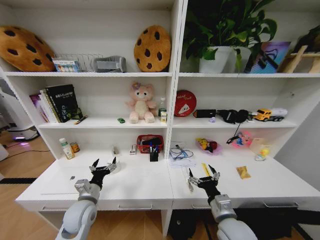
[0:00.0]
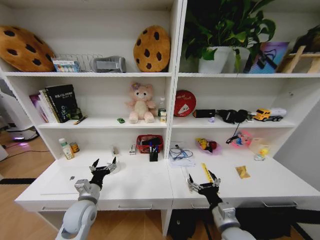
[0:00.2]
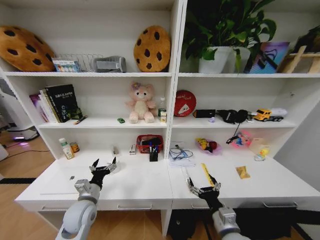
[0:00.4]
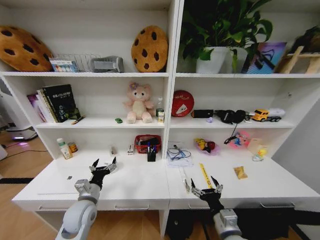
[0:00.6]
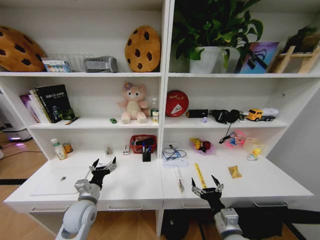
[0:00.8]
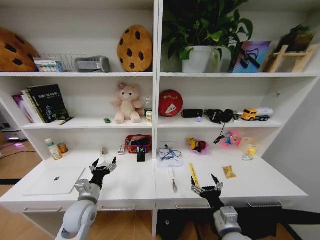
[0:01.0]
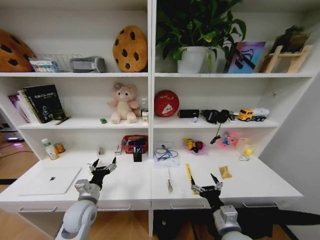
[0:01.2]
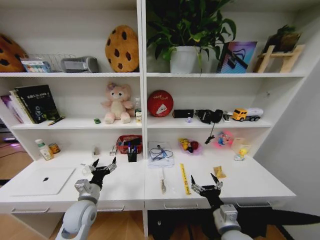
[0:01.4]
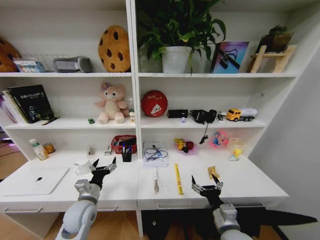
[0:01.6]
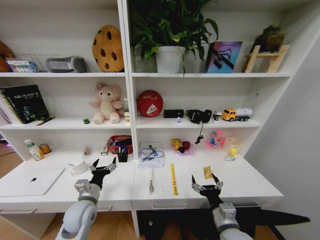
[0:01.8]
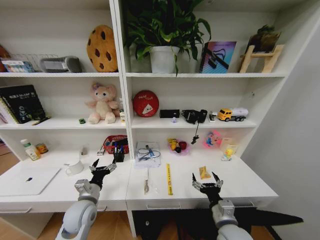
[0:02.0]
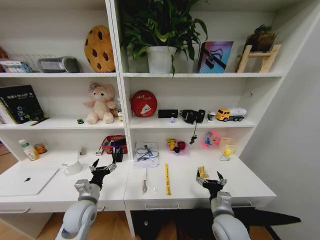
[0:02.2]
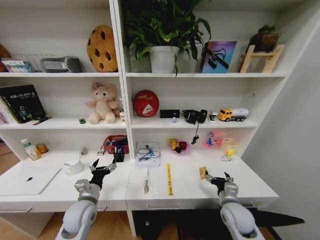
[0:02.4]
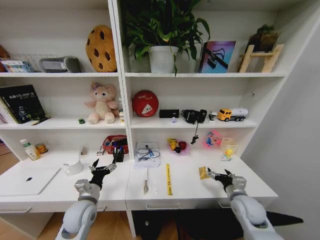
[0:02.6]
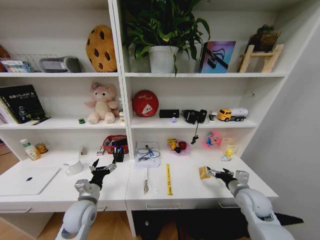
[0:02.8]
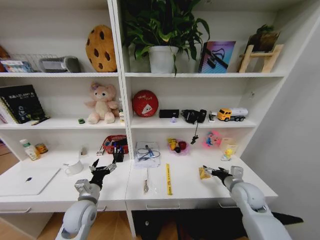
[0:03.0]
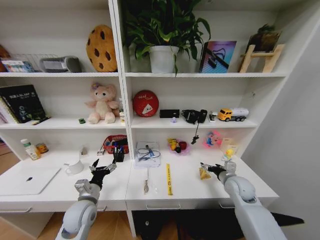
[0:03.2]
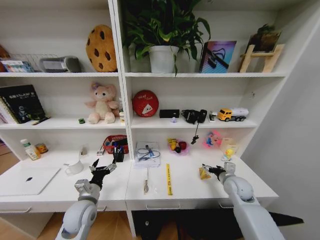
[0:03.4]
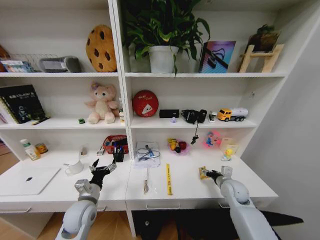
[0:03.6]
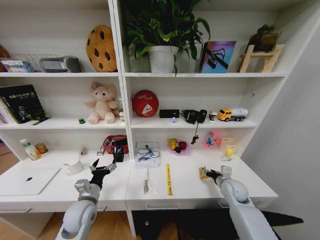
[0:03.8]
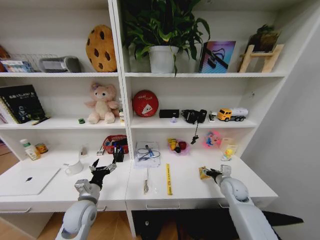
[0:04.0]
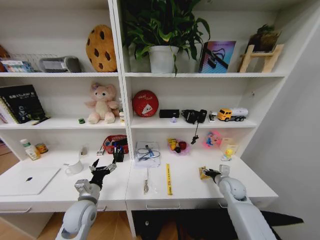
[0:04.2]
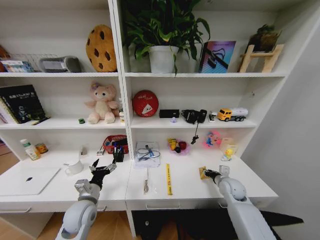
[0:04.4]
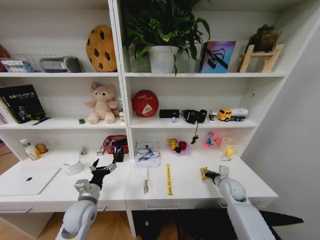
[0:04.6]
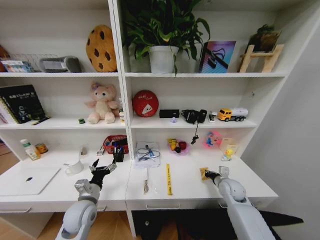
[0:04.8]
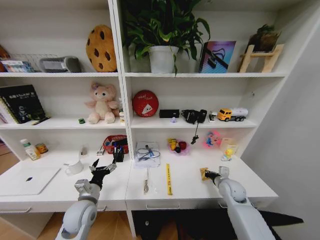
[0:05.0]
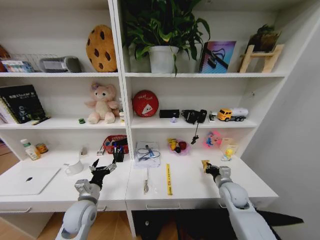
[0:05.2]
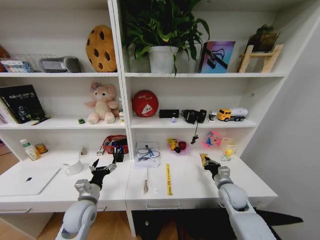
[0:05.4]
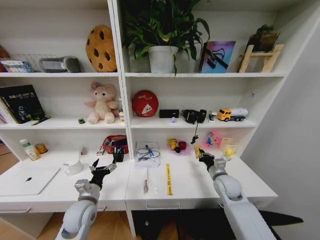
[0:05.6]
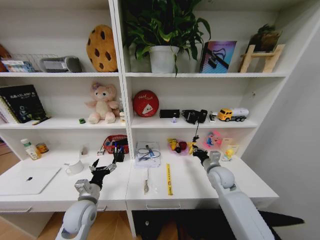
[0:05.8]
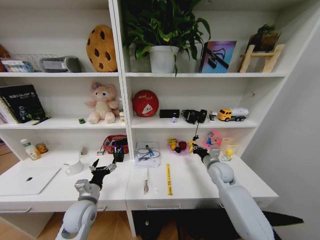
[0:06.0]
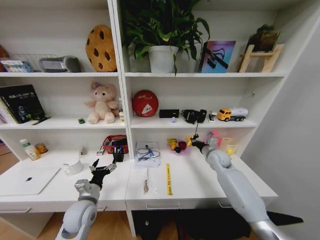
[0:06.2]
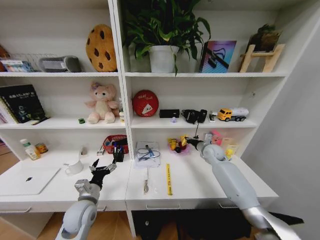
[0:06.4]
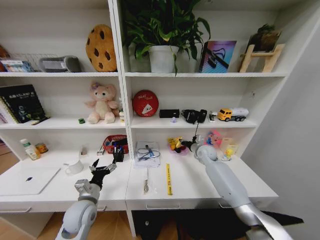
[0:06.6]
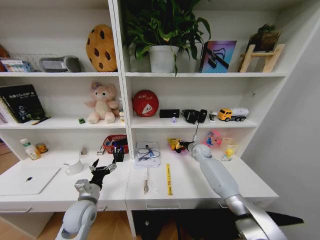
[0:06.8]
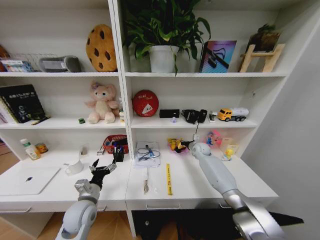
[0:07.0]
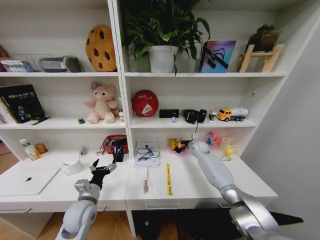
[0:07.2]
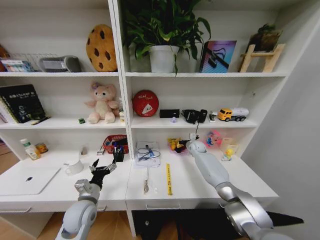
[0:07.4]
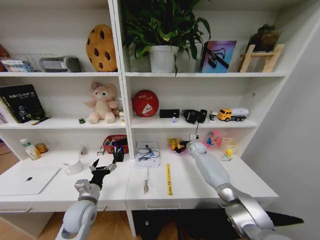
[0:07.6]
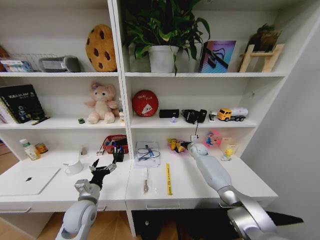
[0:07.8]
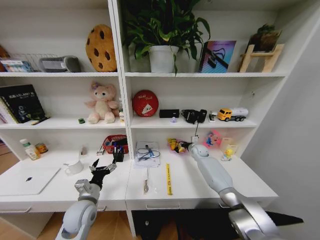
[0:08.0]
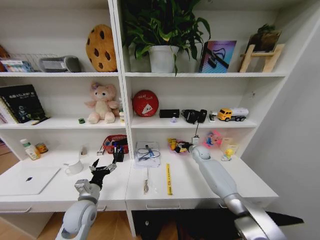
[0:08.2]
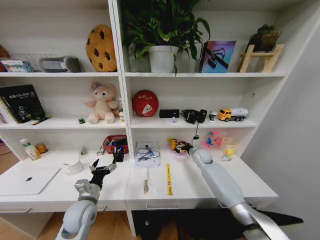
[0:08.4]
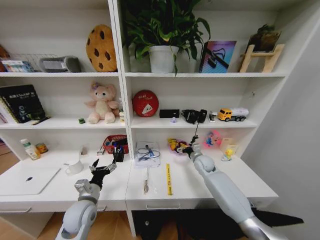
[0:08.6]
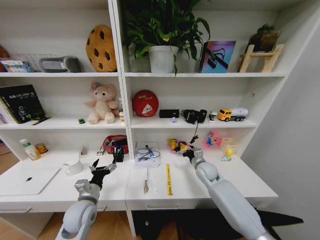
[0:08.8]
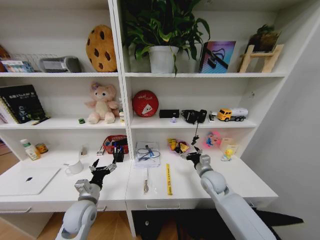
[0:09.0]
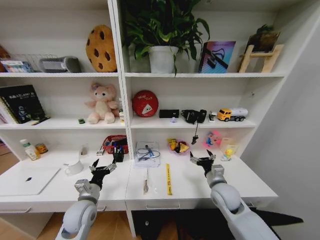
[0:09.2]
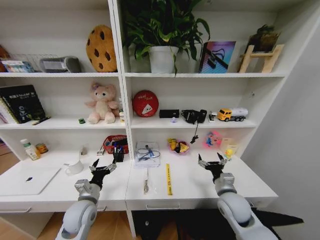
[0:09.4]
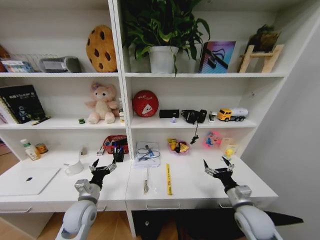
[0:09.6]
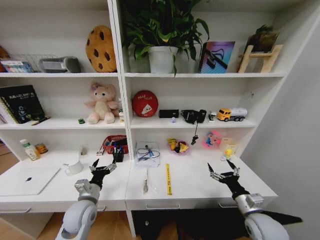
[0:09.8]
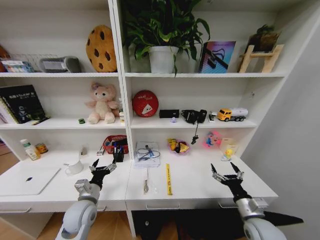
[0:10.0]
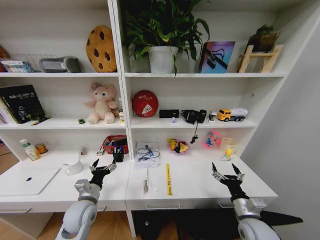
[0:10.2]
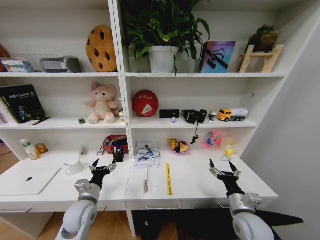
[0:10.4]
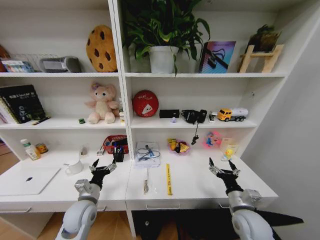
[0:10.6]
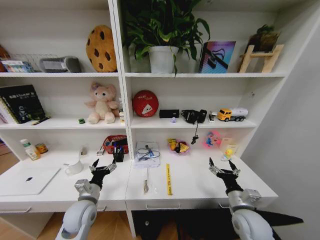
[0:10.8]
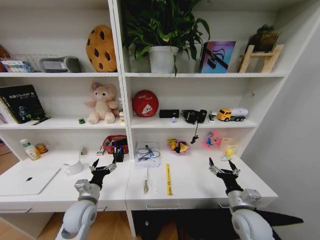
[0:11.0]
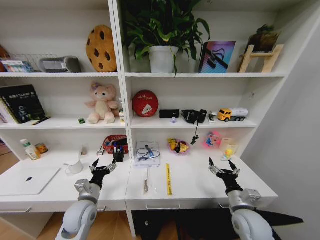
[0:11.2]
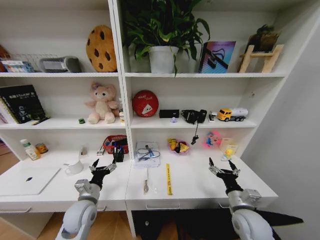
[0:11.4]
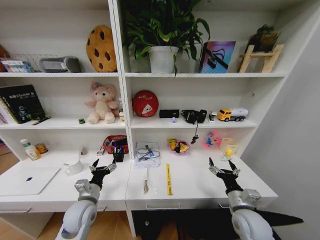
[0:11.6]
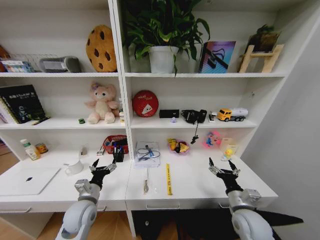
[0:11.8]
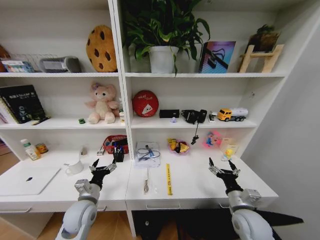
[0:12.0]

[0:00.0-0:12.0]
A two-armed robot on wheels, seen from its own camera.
Task of the whole recording: Organize the objects on the table.
0:01.6 to 0:03.0: The right gripper goes roughly 20 cm forward and to the right.
0:03.0 to 0:04.4: The right gripper moves downward, roughly 5 cm, and closes.
0:04.4 to 0:06.0: The right gripper goes roughly 10 cm upward and to the left.
0:06.0 to 0:07.6: The right gripper travels forward by some 20 cm.
0:07.6 to 0:09.0: The right gripper heads backward, covering some 25 cm, and opens.
0:09.0 to 0:10.4: The right gripper travels backward and to the right by approximately 15 cm.
0:10.4 to 0:12.0: The two grippers keep their place.

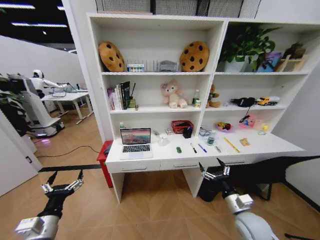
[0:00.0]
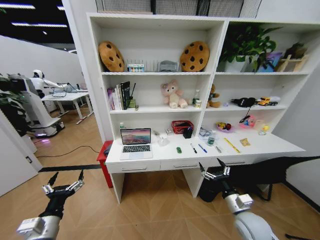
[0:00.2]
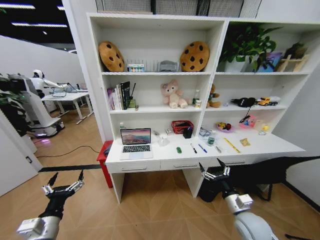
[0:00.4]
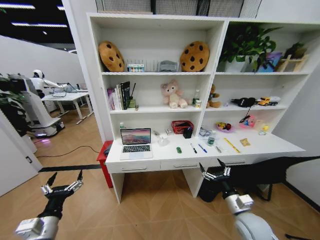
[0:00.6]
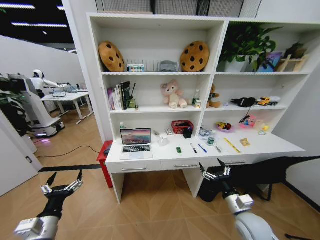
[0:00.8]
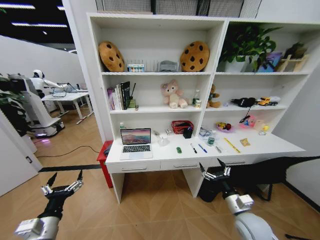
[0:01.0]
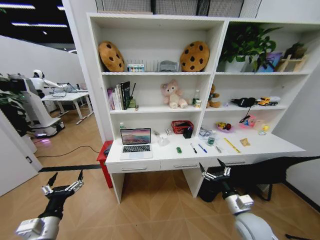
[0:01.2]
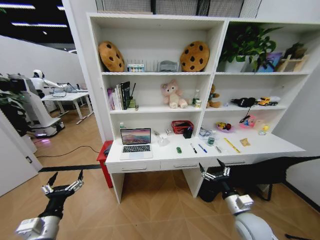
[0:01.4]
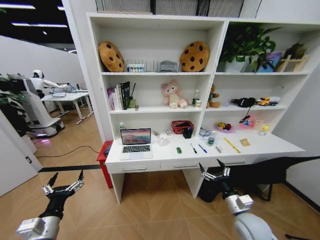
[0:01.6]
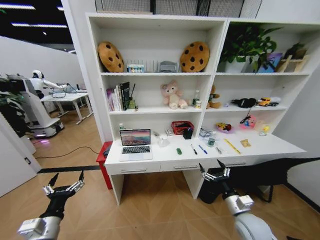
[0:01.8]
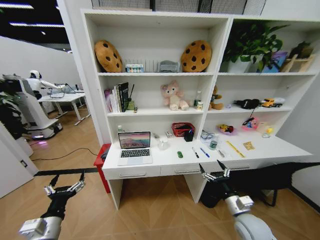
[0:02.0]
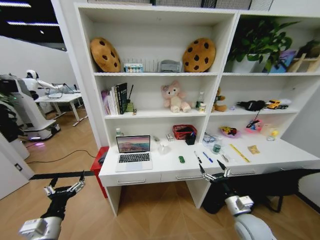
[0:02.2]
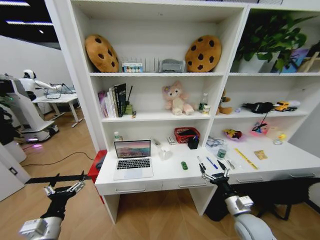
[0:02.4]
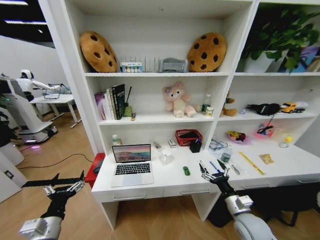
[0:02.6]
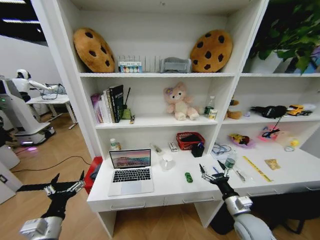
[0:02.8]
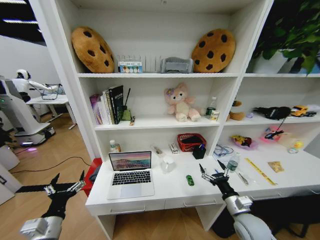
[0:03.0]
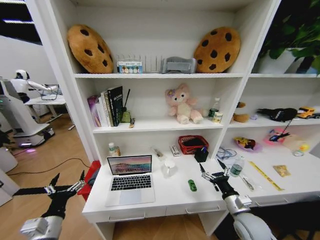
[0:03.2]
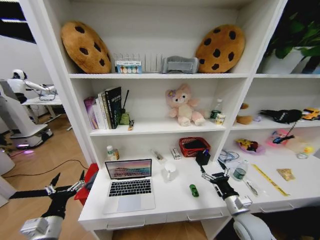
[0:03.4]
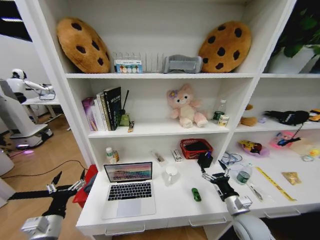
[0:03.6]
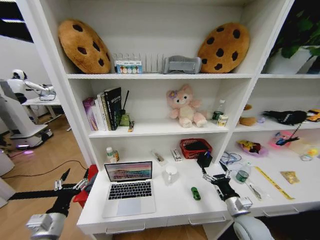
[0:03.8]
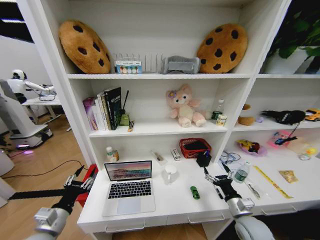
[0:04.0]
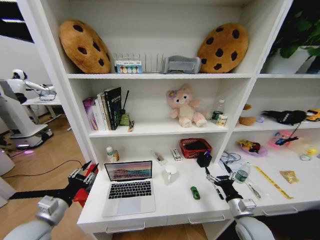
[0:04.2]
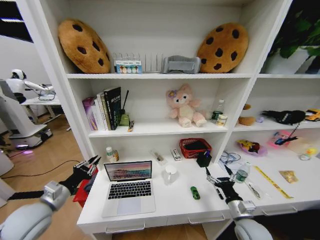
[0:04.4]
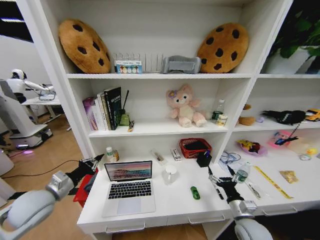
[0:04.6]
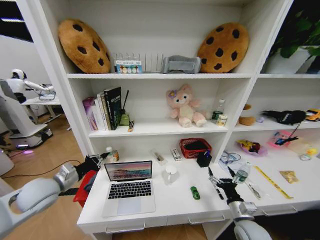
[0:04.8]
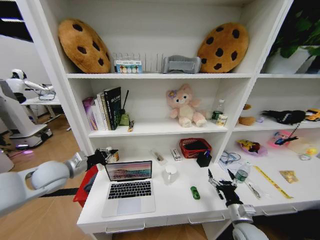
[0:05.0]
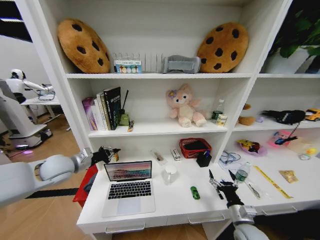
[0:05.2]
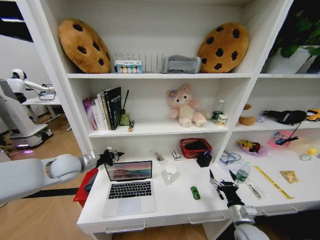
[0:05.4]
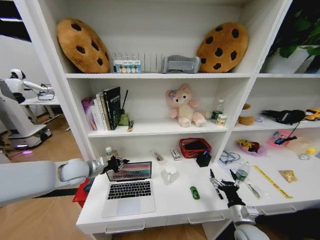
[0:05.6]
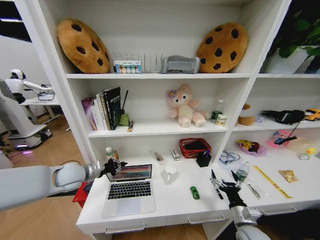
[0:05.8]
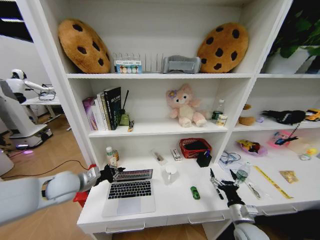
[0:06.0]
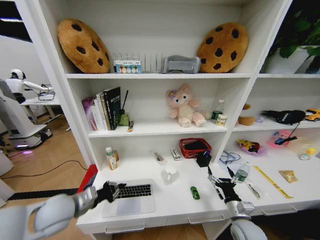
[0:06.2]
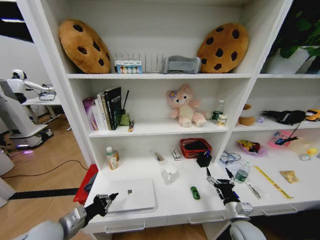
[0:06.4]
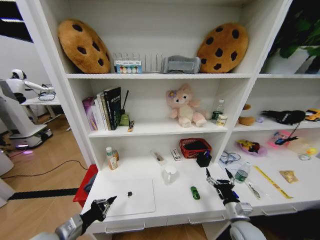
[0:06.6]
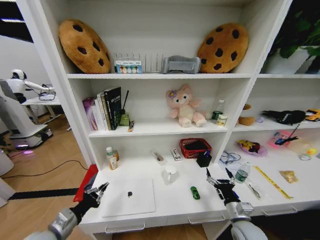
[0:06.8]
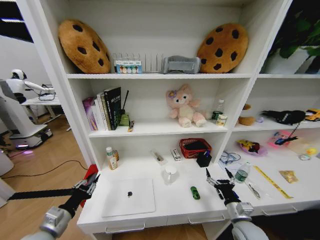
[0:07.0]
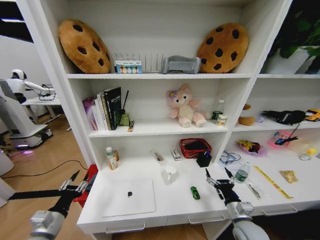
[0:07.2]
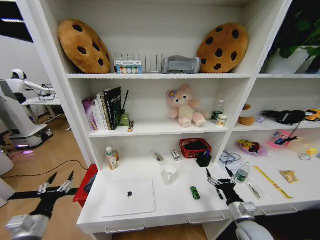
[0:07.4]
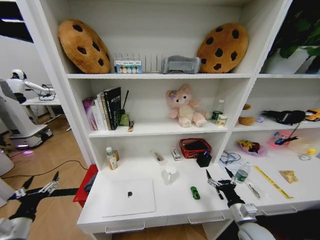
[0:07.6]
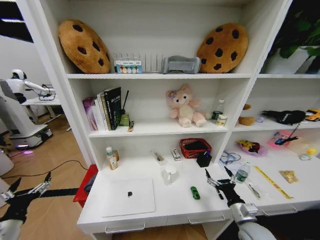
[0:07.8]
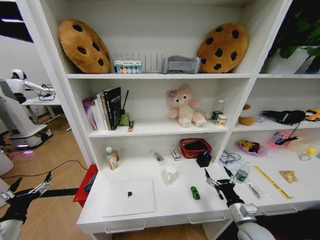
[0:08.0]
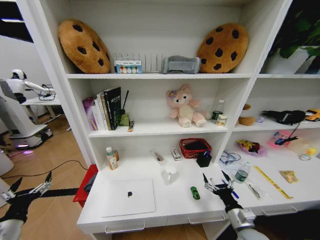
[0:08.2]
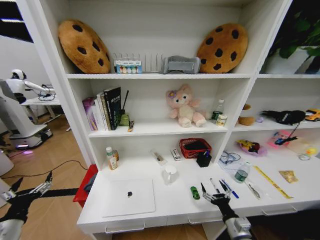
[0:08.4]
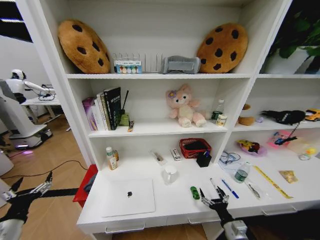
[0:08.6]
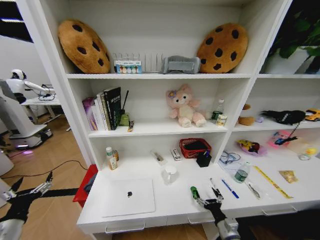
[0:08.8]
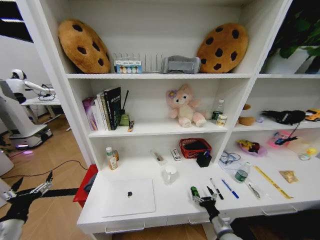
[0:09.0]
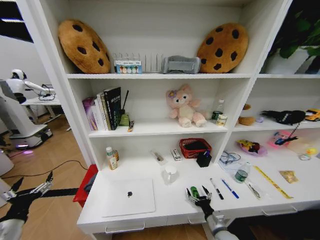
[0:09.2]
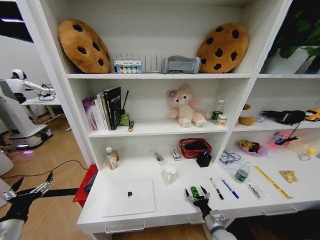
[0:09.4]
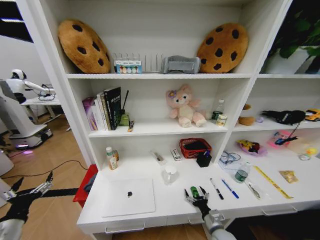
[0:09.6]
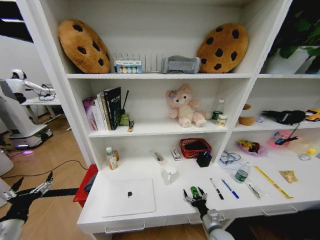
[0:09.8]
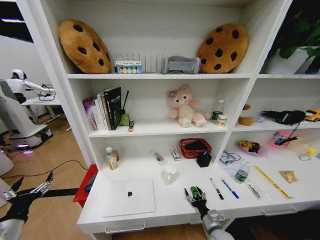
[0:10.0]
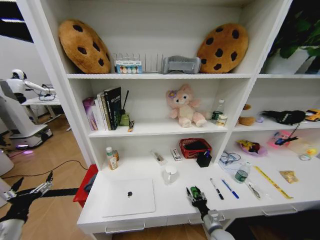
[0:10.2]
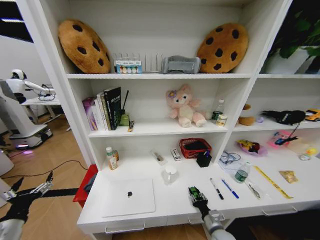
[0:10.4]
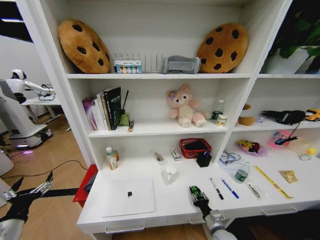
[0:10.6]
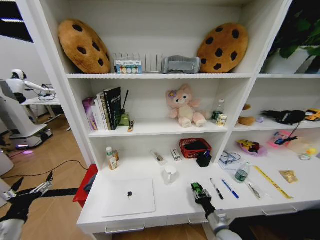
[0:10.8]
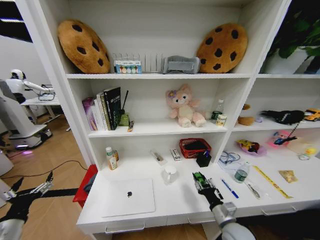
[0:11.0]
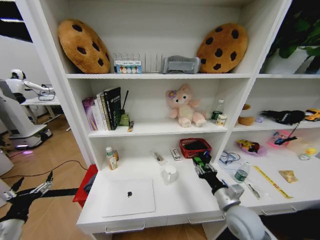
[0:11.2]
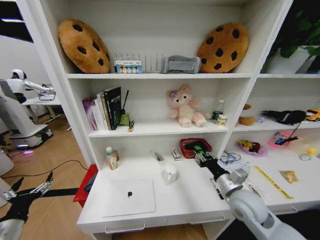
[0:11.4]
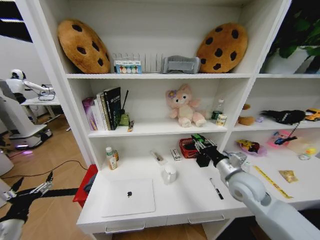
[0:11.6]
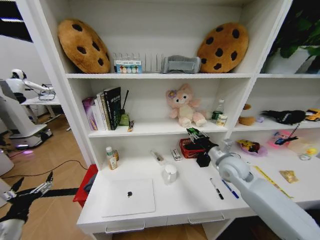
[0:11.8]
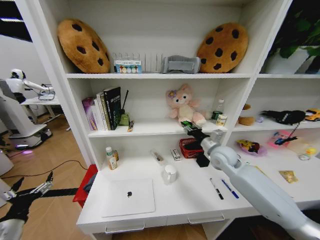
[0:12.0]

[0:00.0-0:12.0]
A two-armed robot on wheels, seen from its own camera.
Task of the whole recording: Organize the objects on the table.
0:03.0 to 0:04.4: The left gripper travels forward and upward by about 10 cm, and closes.
0:04.4 to 0:06.0: The left gripper shifts some 10 cm forward and to the right.
0:06.0 to 0:07.6: The left gripper goes about 20 cm backward, to the left and downward, and opens its fingers.
0:07.6 to 0:09.0: The right gripper travels downward by about 10 cm.
0:09.0 to 0:10.4: The right gripper closes up.
0:10.4 to 0:12.0: The right gripper goes about 35 cm upward and forward.
